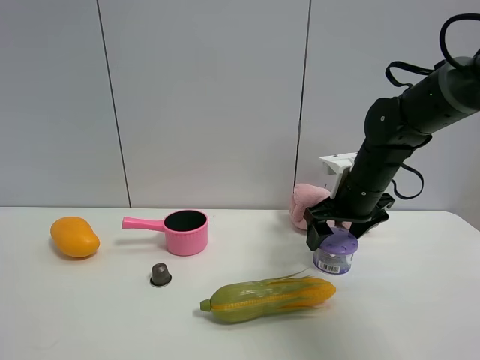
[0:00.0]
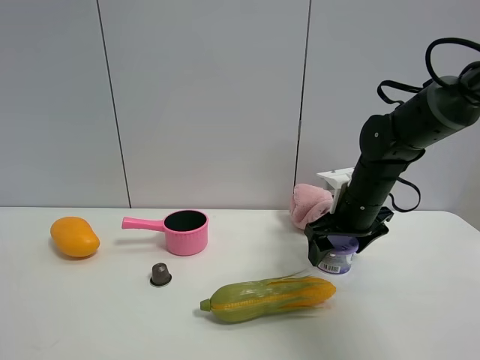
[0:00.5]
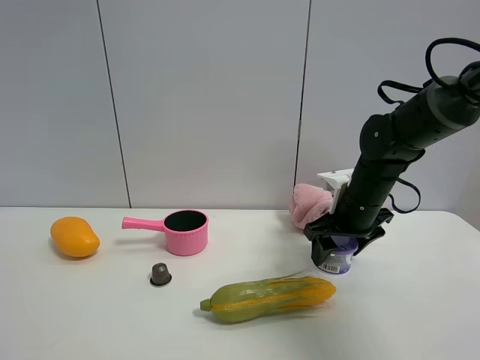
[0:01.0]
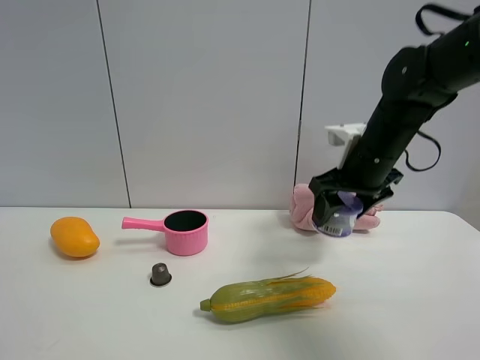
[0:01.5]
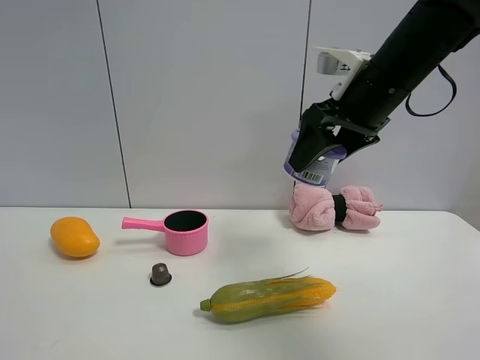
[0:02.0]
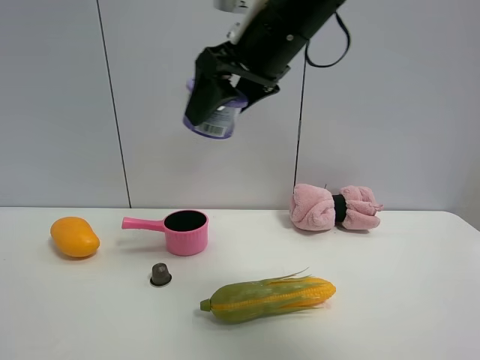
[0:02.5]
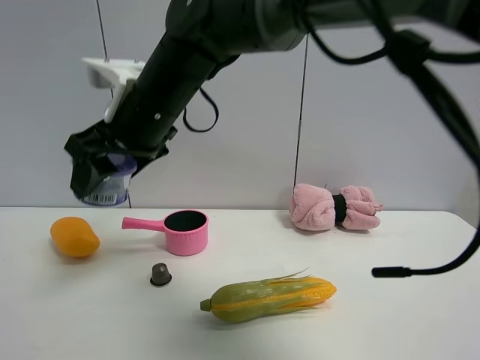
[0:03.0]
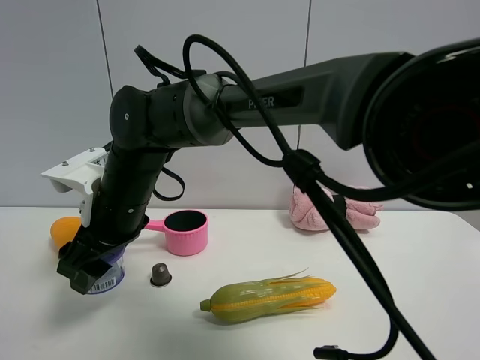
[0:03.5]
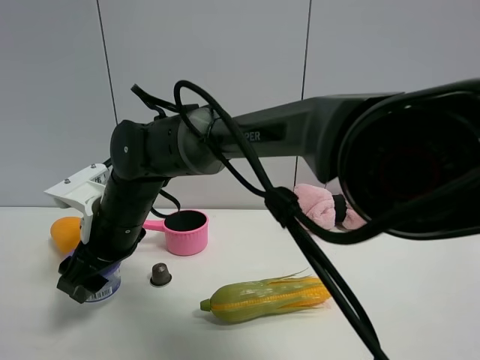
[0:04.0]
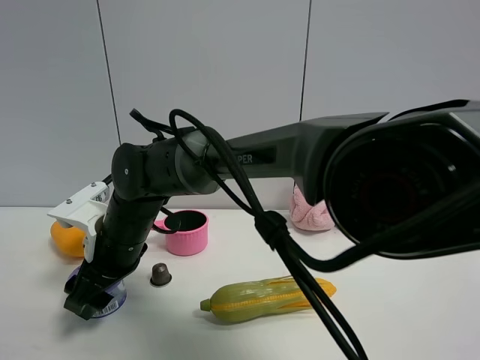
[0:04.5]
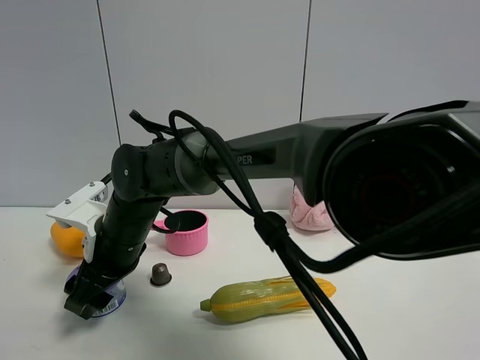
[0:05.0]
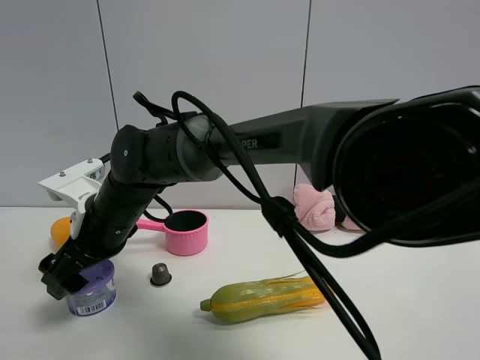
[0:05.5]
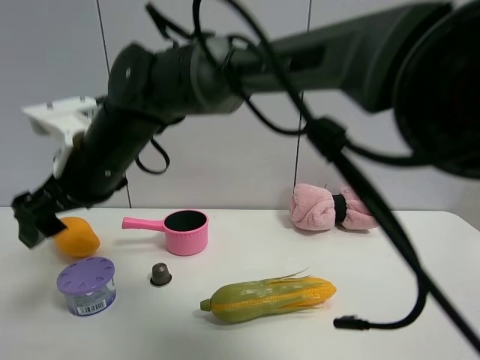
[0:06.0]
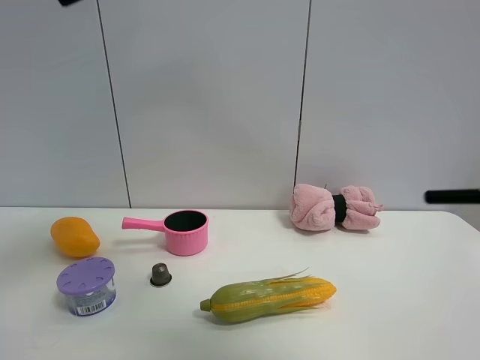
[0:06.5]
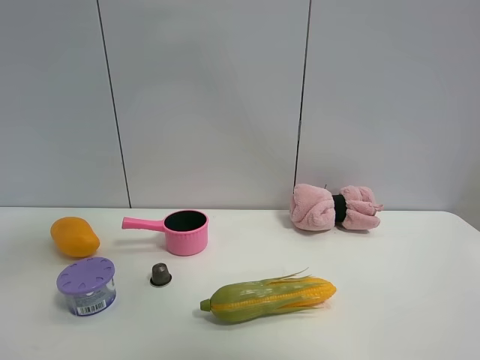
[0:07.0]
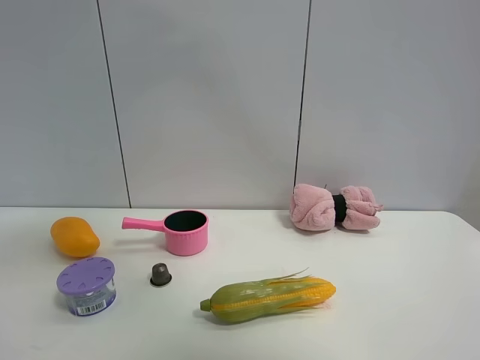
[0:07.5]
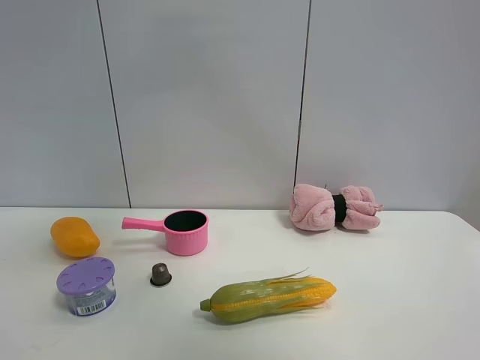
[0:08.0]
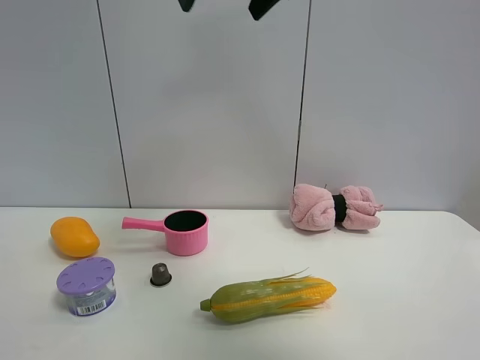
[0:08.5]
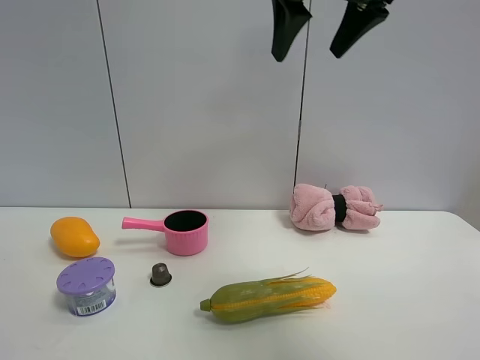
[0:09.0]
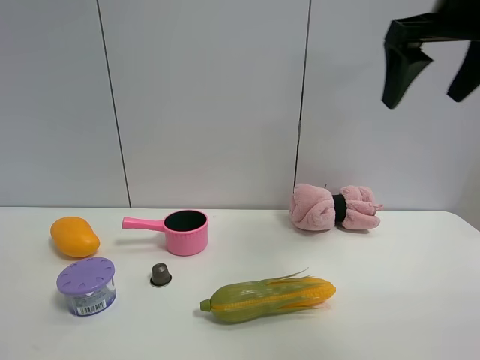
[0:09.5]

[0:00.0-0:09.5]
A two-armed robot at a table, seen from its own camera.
Task of the whole recording: the gripper move the object.
Step, 0:01.5 to 0:05.5: Place the Incense box on the table with the right gripper.
0:00.0 to 0:02.0: The right gripper travels upward and backward by roughly 15 cm, and closes.
0:02.0 to 0:04.0: The right gripper shifts approximately 35 cm to the left and downward.
0:04.0 to 0:05.5: The right gripper opens up.
0:05.5 to 0:07.5: The right gripper moves upward, some 35 cm.
0:07.5 to 0:09.5: The right gripper shifts roughly 30 cm to the right.

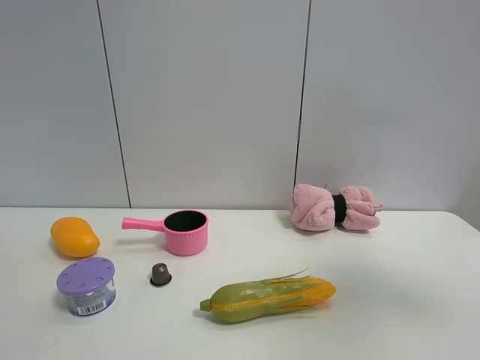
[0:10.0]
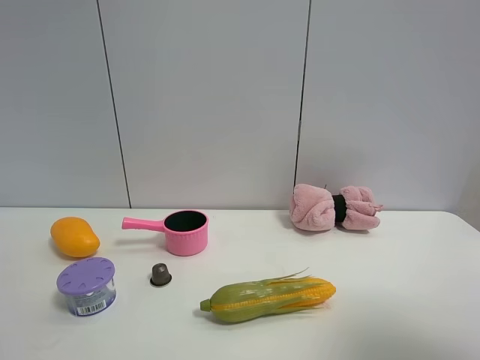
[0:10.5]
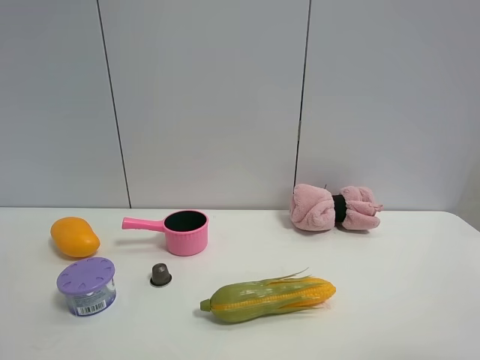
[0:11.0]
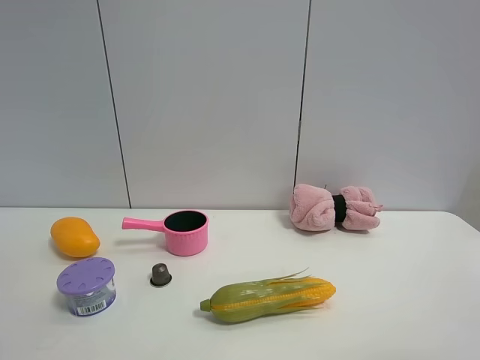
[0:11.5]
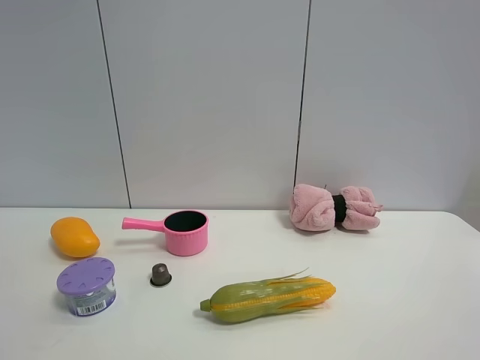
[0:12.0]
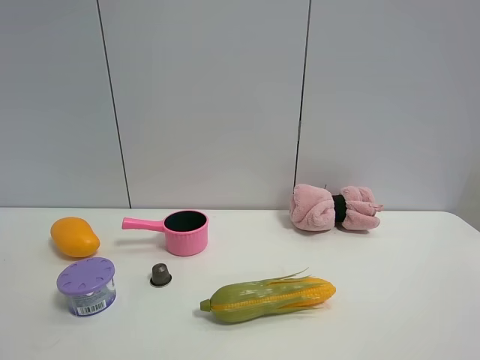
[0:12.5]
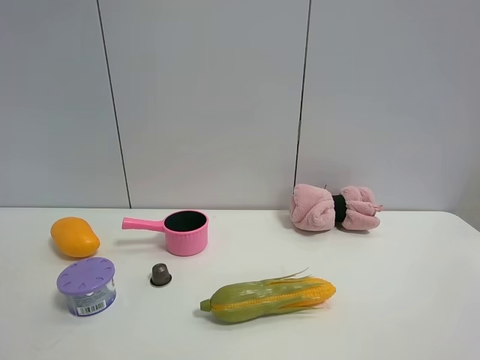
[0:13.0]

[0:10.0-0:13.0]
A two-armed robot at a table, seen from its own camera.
Task of the whole recording: the gripper move the object.
0:10.0 to 0:11.5: The right gripper heads backward and downward, covering approximately 20 cm.
